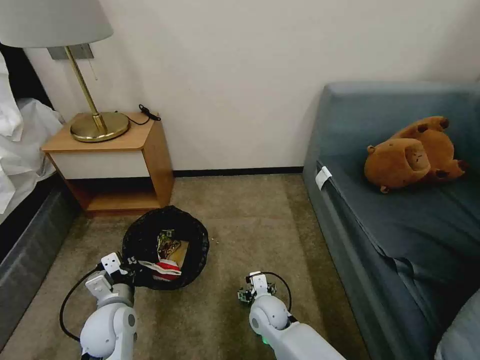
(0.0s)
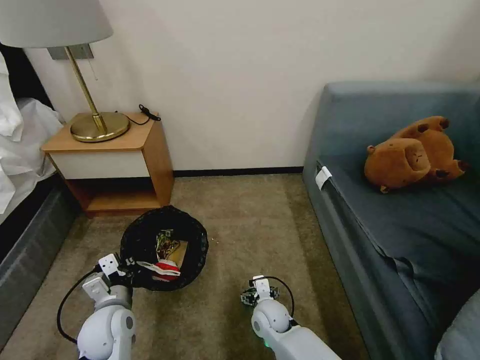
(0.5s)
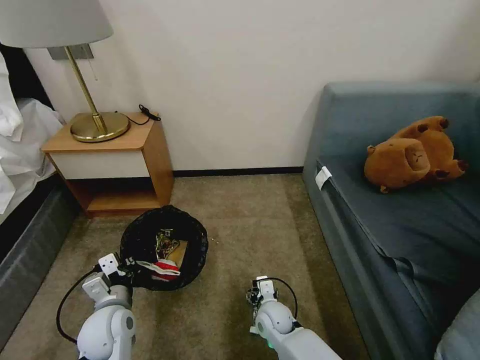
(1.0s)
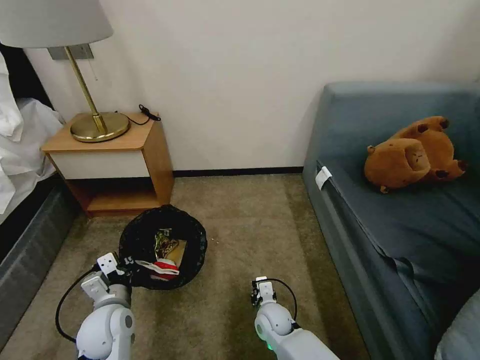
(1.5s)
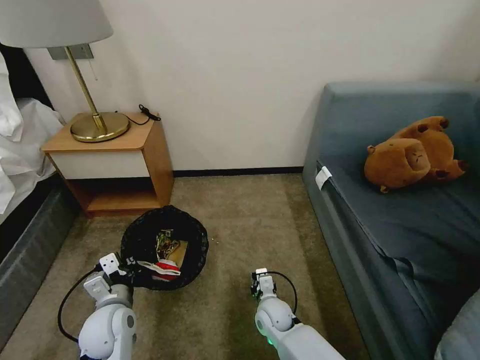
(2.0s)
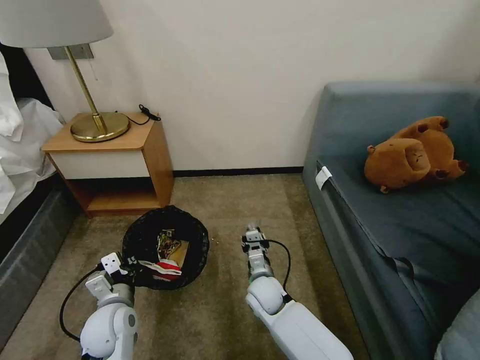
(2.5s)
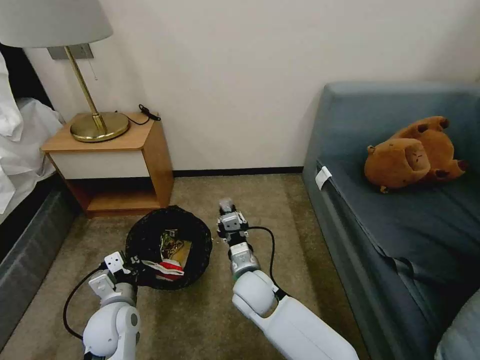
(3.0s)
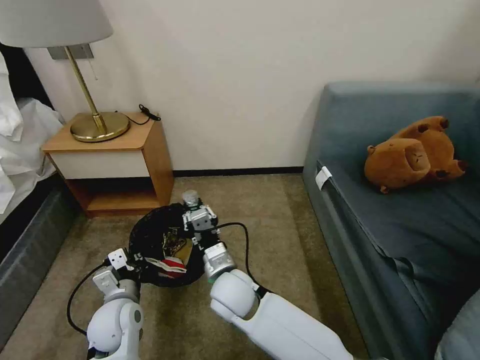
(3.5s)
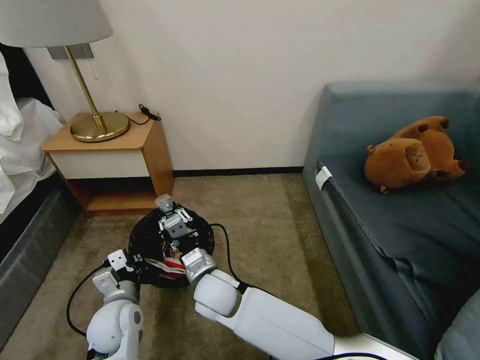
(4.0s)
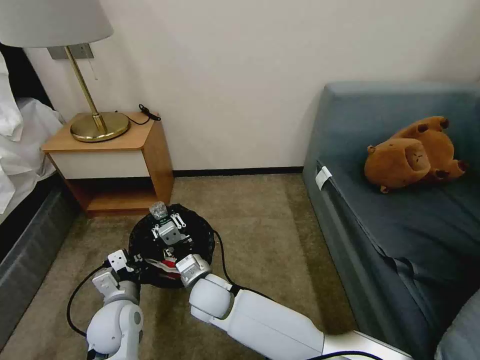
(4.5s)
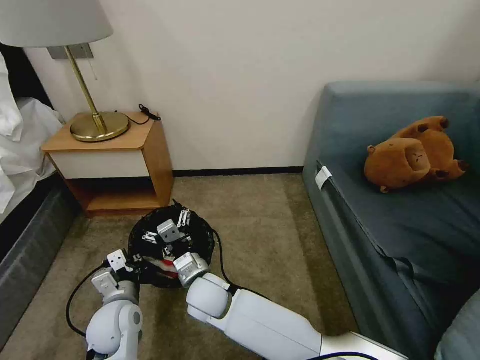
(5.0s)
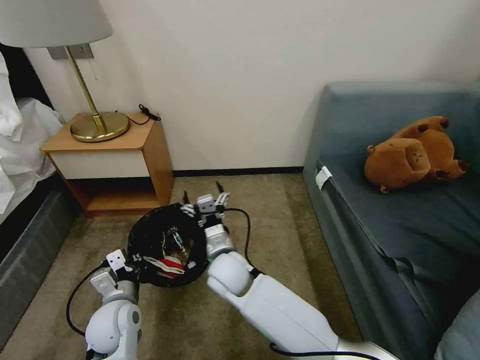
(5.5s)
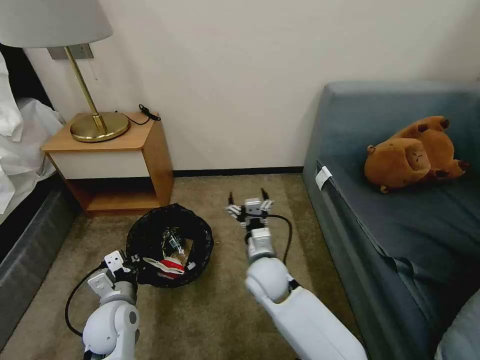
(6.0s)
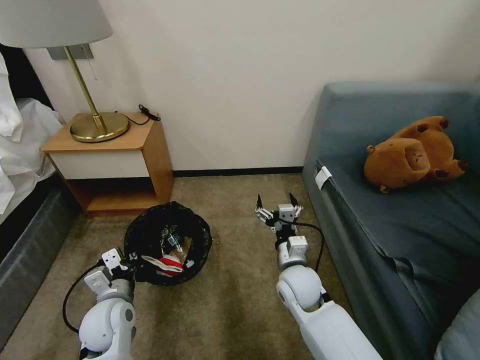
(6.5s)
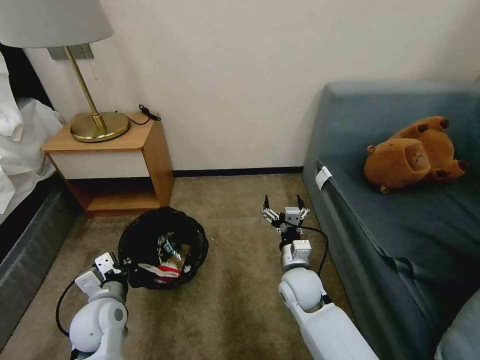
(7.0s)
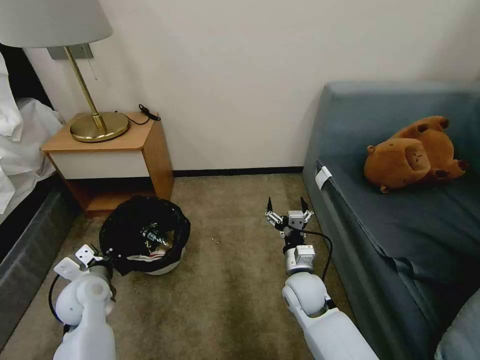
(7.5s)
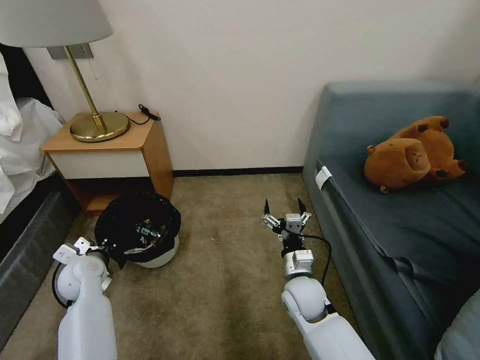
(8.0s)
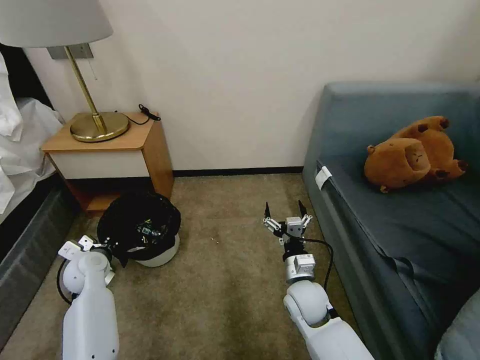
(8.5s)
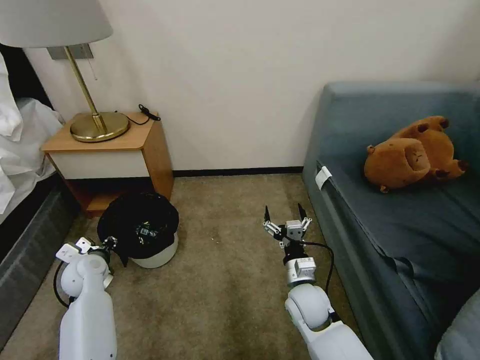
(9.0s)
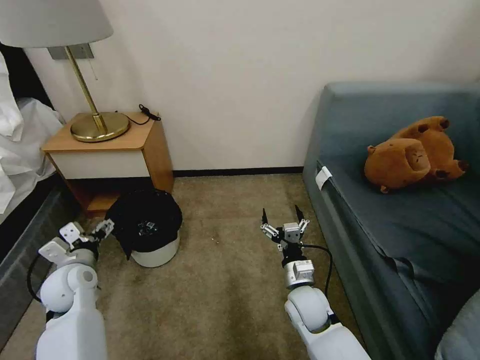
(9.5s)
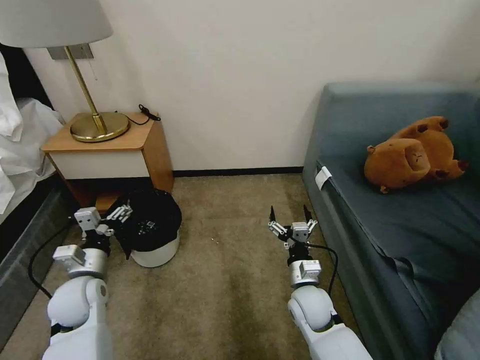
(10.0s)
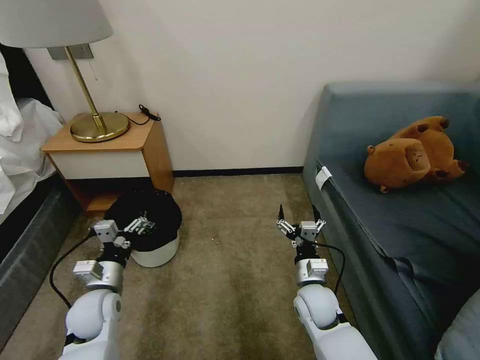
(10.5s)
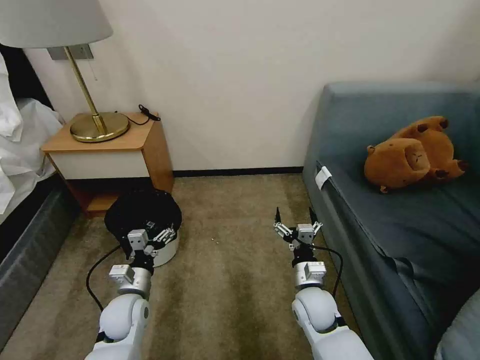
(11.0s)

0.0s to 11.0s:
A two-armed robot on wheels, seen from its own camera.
Task of the whole recording: Pick up the trash bin, then pick up the garbage on the floor and place it into the trash bin.
0.0s to 2.0s: The right gripper closes up.
2.0s to 3.5s: The right gripper shifts some 20 cm upward and to the left.
3.5s to 5.5s: The right gripper opens up.
5.5s to 7.5s: The right gripper heads to the right, covering approximately 20 cm. Meanwhile the left gripper shifts approximately 5 cm to the left.
7.5s to 9.0s: The left gripper moves forward, some 5 cm, and opens up.
9.0s to 11.0s: The left gripper is displaced to the right and backward by roughly 15 cm, and opens.

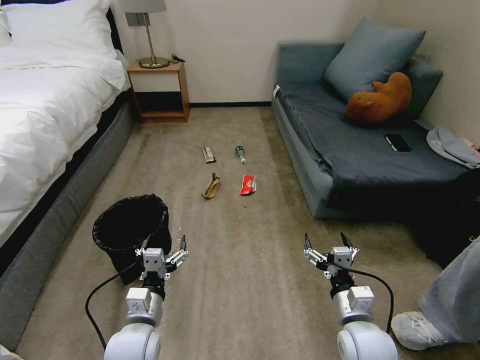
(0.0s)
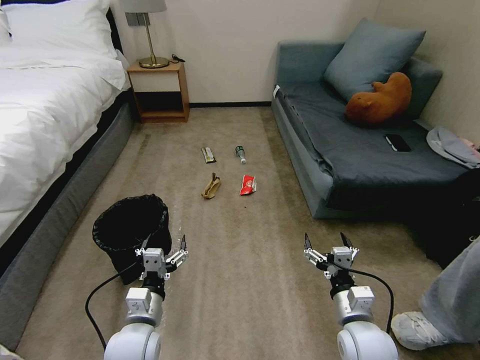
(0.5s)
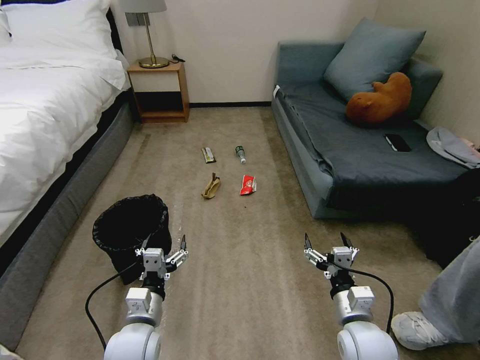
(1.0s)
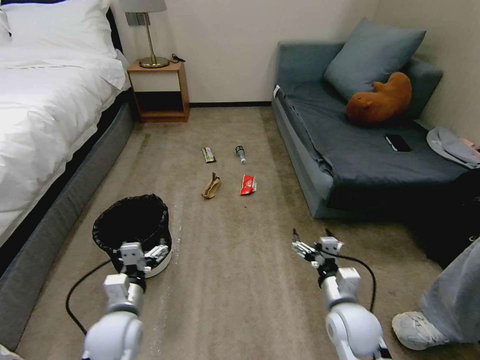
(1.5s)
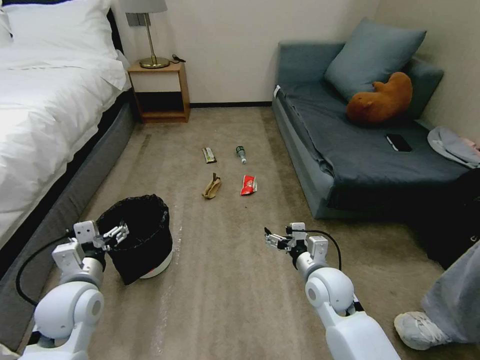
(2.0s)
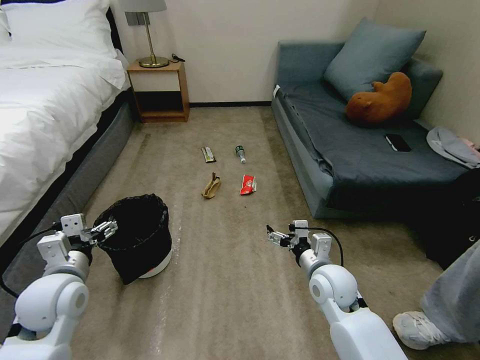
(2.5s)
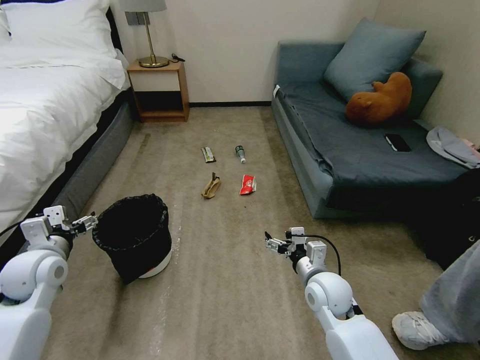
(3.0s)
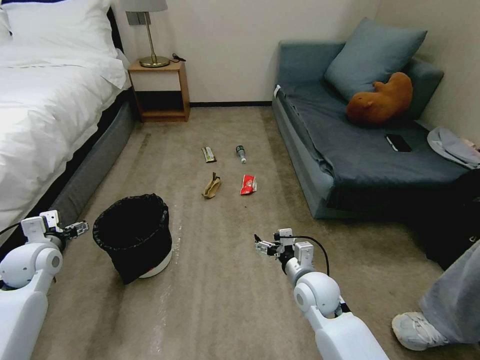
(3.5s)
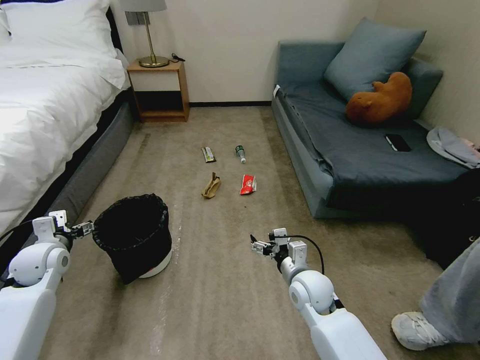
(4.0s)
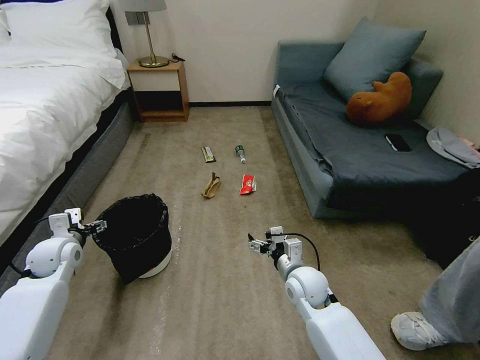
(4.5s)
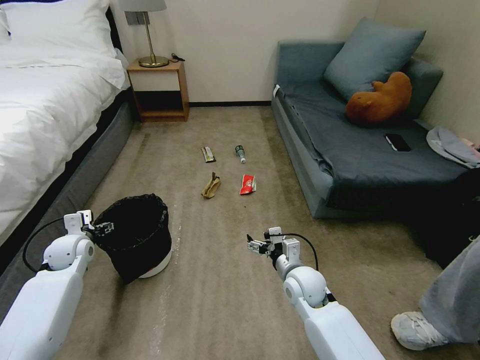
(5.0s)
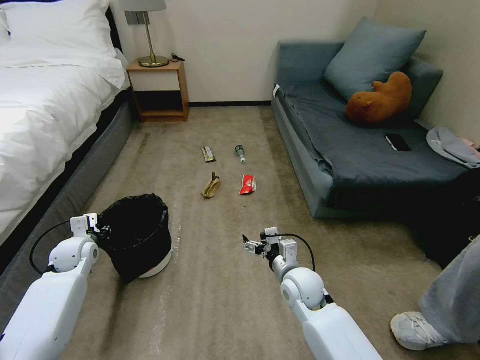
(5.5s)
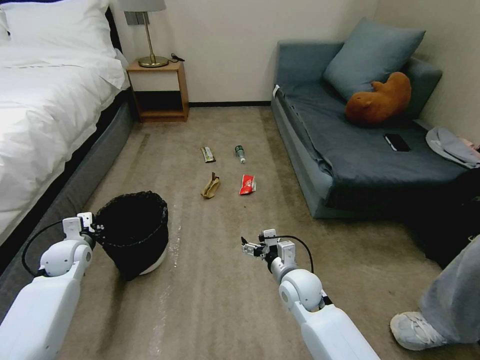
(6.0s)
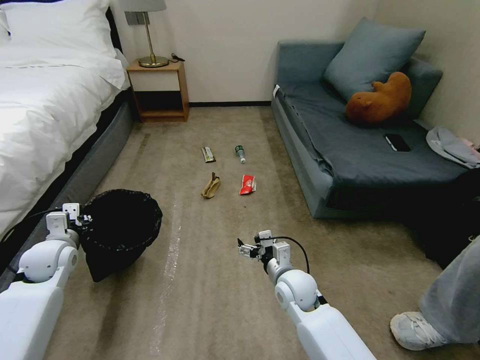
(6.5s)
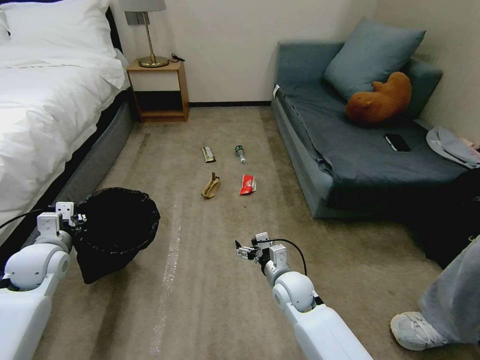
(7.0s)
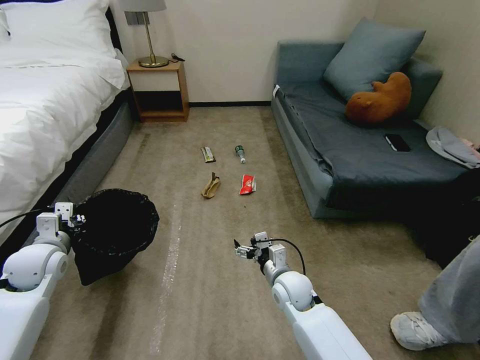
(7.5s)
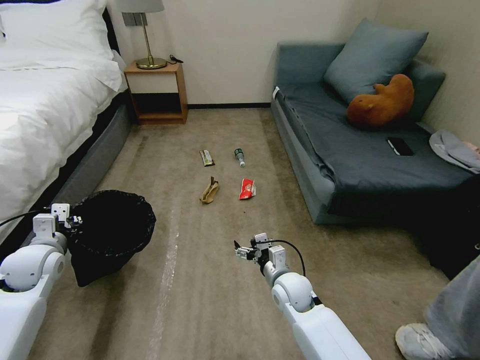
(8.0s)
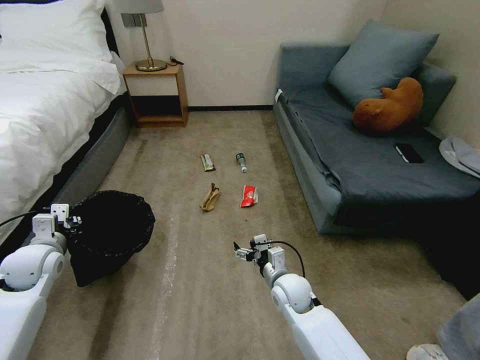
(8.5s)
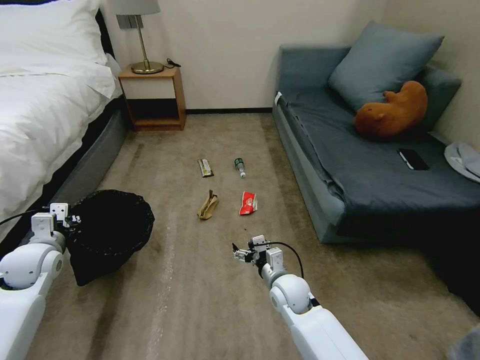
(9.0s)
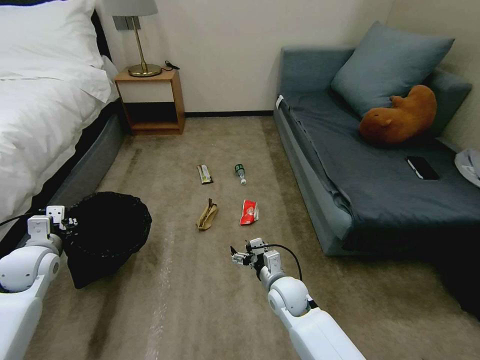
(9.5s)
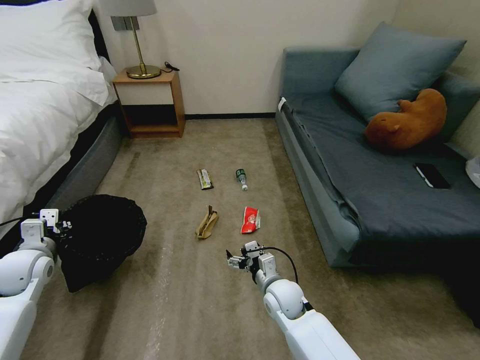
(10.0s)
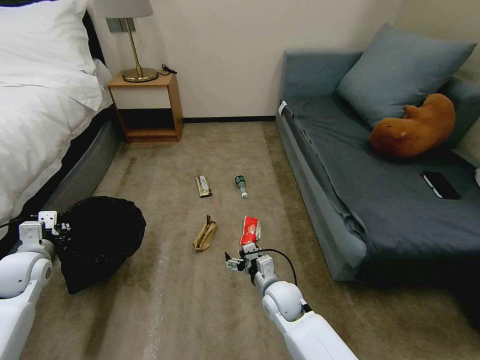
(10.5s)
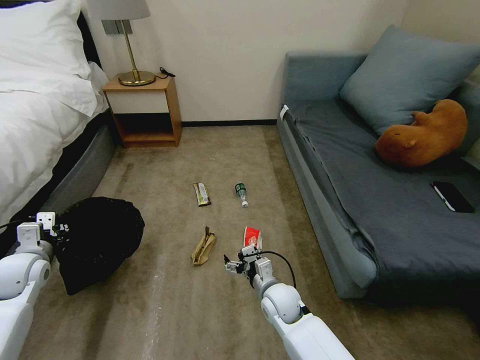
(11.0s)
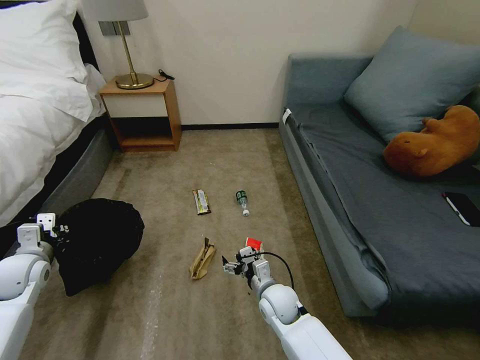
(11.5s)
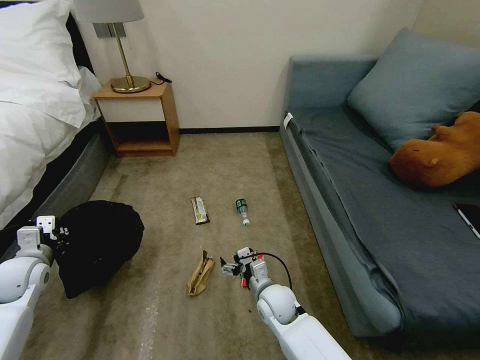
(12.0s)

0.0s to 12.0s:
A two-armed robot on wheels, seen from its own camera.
Task of the whole recording: Pick up the trash bin, then pick up the garbage on the floor and place it into the trash bin.
2.0s to 4.0s: The left gripper is displaced to the left and forward by about 15 cm.
4.0s to 6.0s: The left gripper ends up roughly 5 cm from where it was, and closes up.
6.0s to 8.0s: The left gripper heads upward and backward, covering roughly 10 cm.

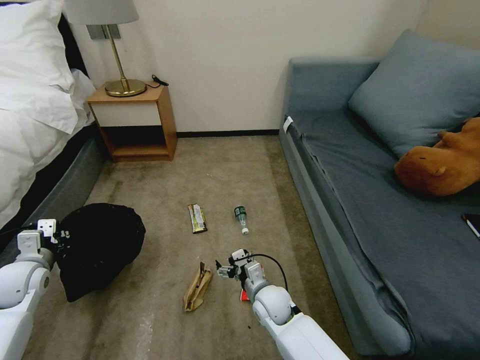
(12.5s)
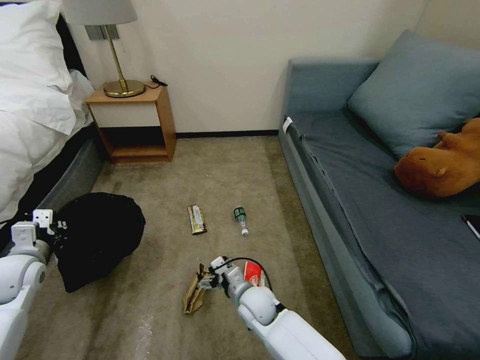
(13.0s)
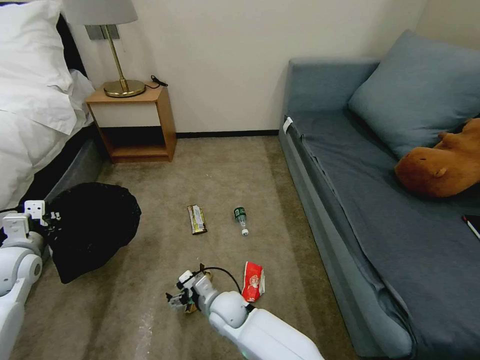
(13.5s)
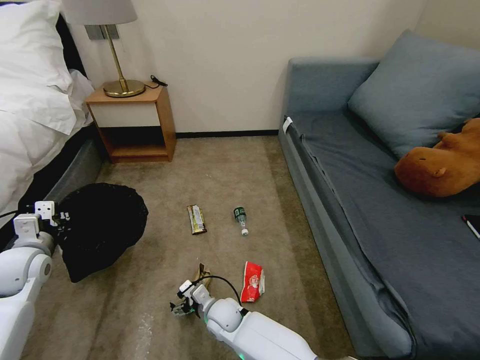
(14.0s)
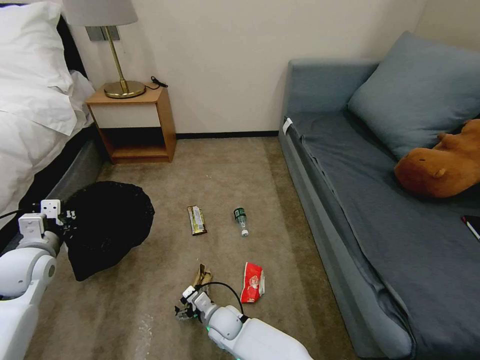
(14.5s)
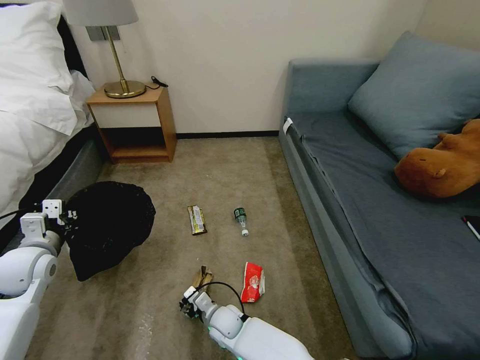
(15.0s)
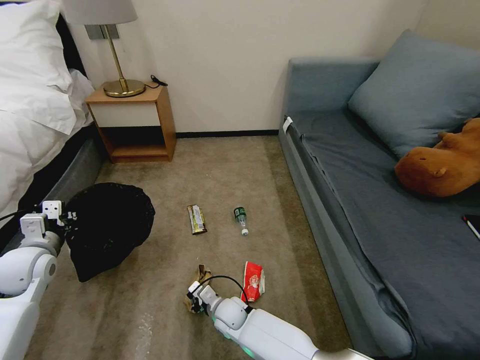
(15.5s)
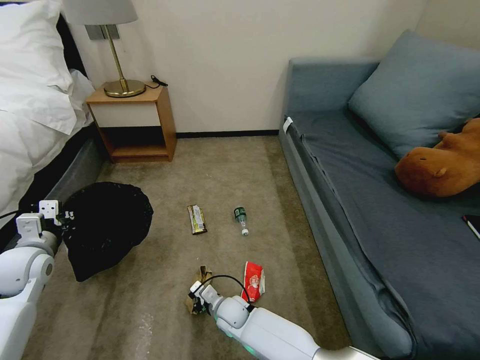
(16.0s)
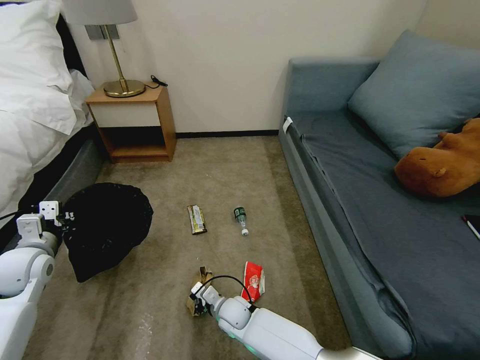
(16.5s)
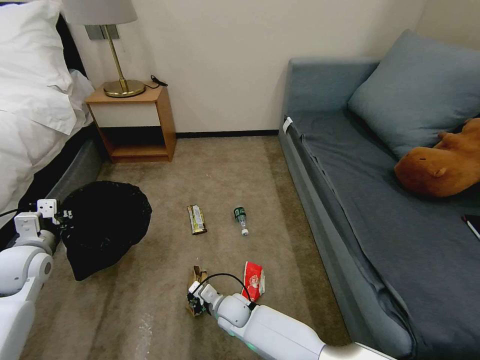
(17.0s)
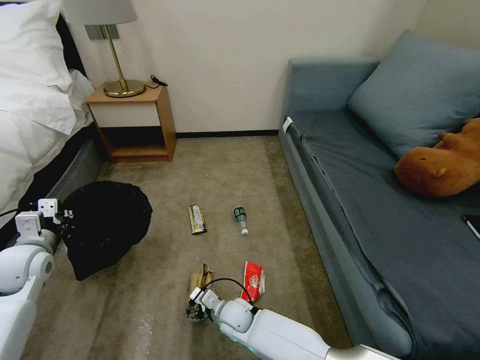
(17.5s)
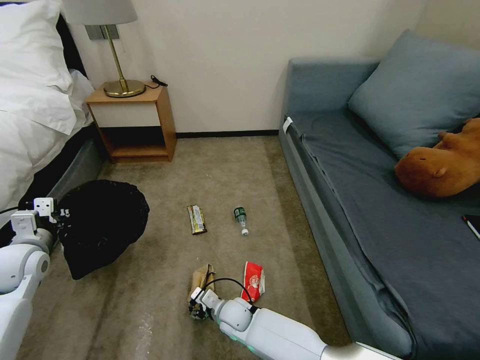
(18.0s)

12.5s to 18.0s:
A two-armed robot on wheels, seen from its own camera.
Task of the whole recording: Pick up the trash bin, then pick up the garbage on the floor and place it into the trash bin.
12.5s to 14.5s: The right gripper shifts about 15 cm to the left and downward. The left gripper shifts by approximately 5 cm.
14.5s to 16.0s: The right gripper closes.
16.0s to 18.0s: The right gripper opens its fingers.
